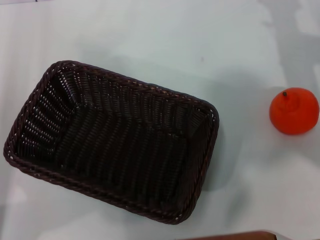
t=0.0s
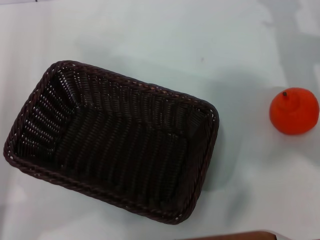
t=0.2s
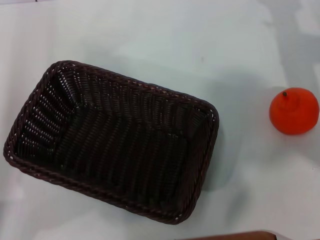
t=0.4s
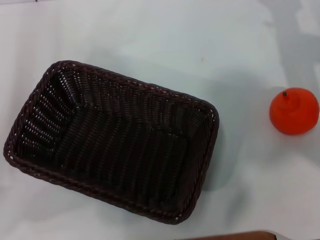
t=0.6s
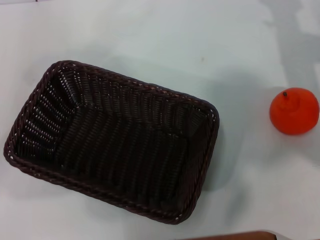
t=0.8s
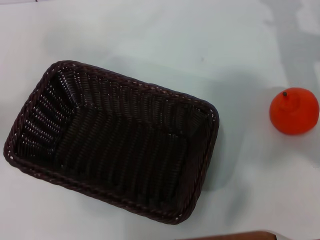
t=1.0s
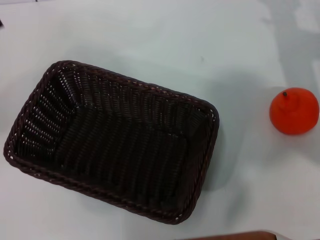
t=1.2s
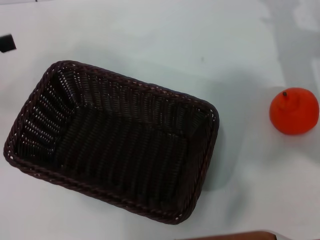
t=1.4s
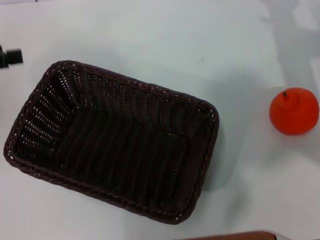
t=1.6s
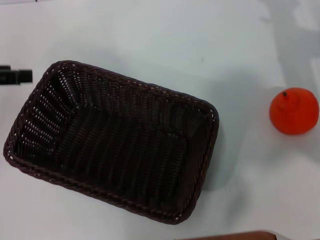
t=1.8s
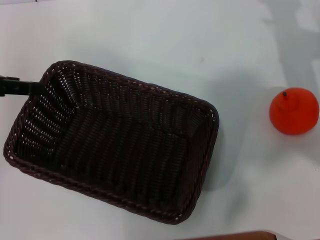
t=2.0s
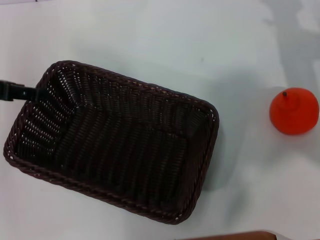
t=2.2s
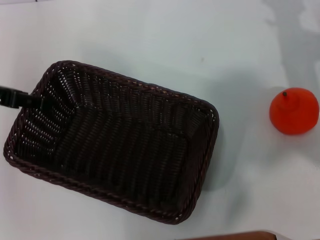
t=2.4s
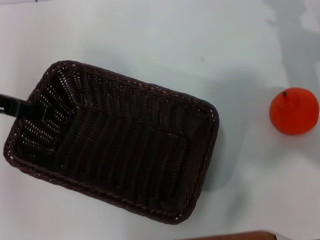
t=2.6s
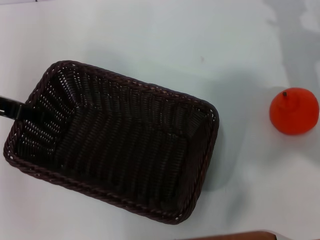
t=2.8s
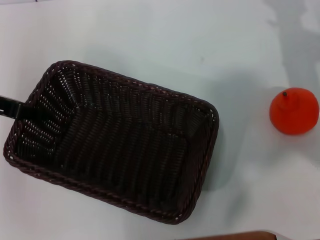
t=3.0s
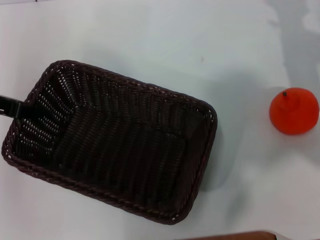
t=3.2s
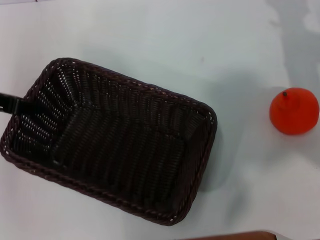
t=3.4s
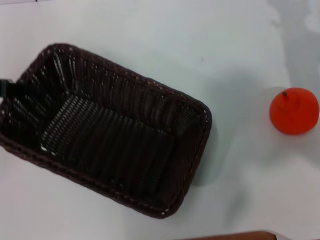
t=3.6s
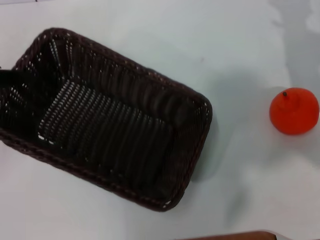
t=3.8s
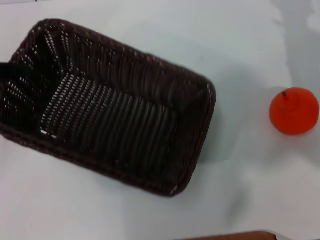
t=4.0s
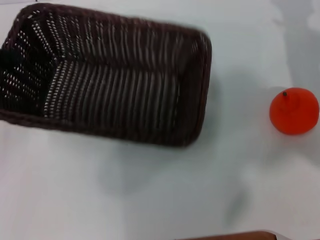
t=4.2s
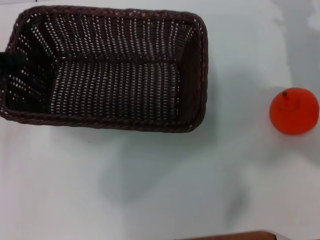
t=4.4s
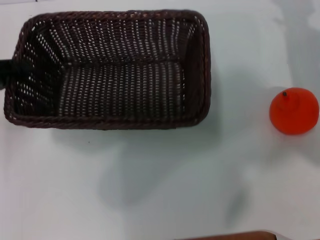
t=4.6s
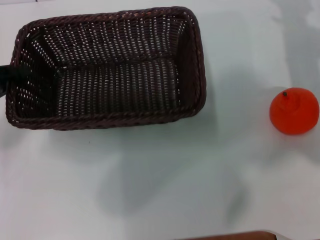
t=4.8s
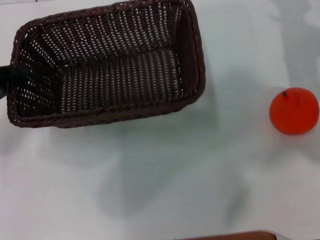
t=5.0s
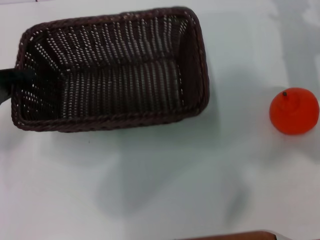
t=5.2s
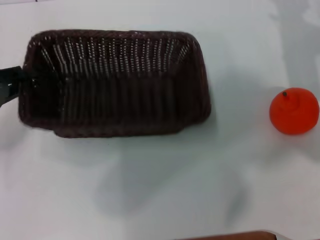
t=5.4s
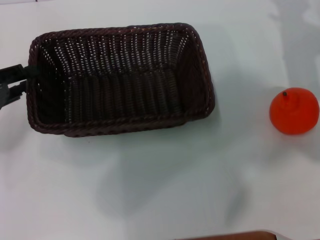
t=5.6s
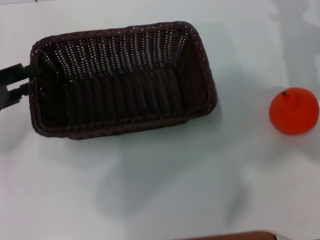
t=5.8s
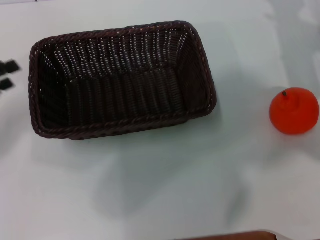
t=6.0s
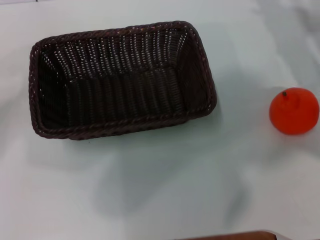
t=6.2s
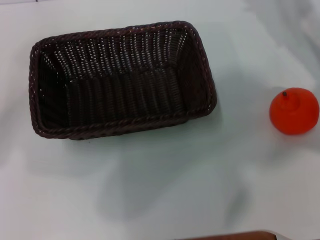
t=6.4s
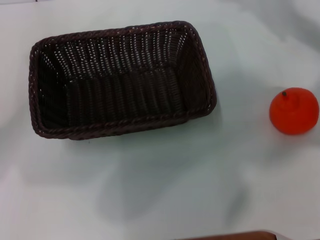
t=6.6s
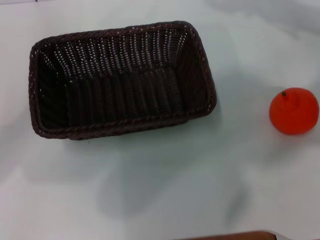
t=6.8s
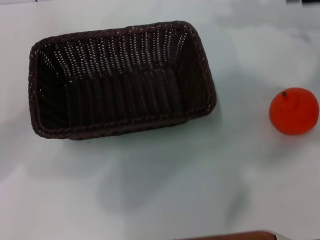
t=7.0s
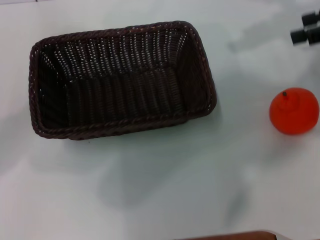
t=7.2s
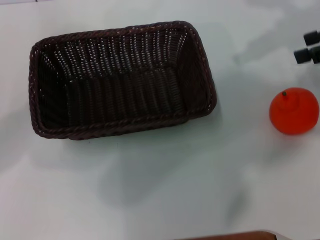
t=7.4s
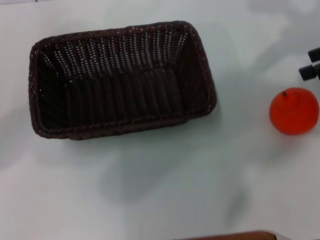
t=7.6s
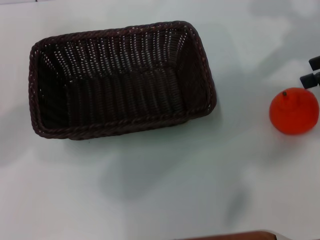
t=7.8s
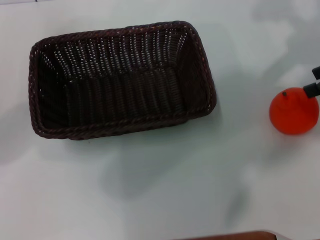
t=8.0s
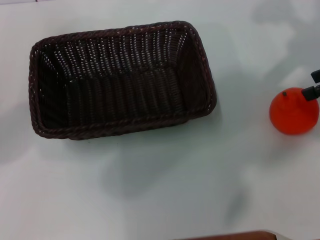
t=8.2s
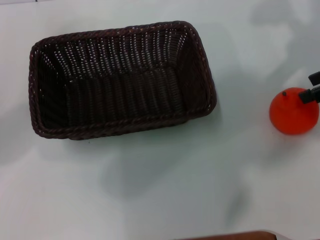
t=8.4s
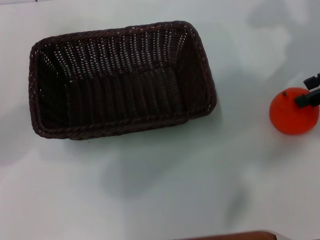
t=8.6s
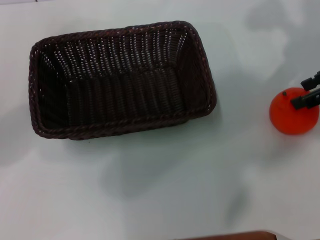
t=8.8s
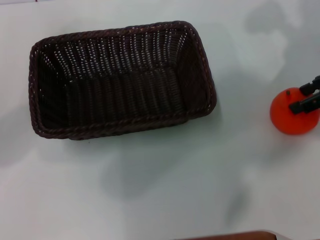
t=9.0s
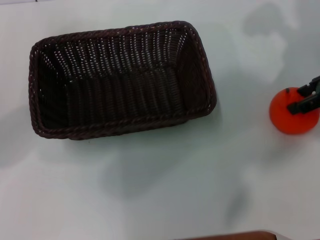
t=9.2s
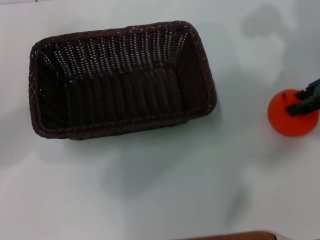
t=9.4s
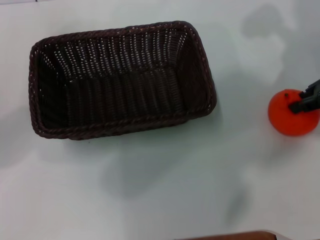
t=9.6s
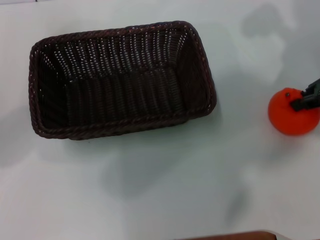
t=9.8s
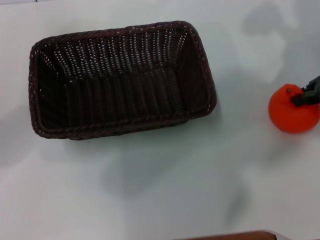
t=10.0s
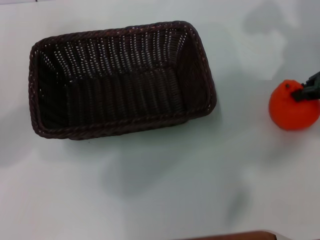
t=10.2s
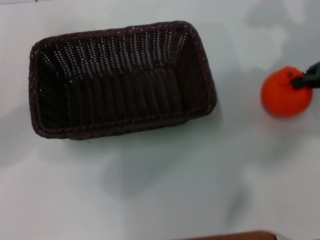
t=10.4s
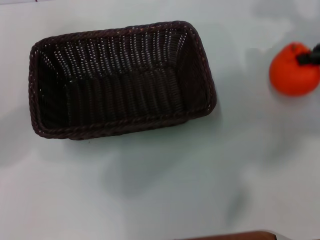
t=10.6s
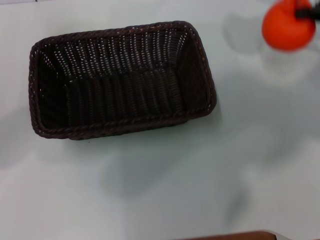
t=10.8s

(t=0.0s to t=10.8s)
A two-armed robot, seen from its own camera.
Task of the whole recording: the left gripper pick up the black basket and place it horizontally in the middle of the table, the right gripper pick up the orange and place it into the black basket.
Step, t=0.0s - t=4.0s: Pick up the dark basket with the left gripper.
Step, t=4.2s - t=5.8s: Place the dark basket in the center of view with the left gripper.
Step, t=6.0s - t=10.6s: Pick up the orange with the right gripper.
t=0.0s - t=1.6s: The left gripper moves upward and forward, some 15 cm.
t=1.6s - t=3.0s: The left gripper is displaced to the right by approximately 5 cm.
t=3.0s - t=4.6s: The left gripper changes place by approximately 5 cm, and closes its fingers.
t=4.6s - t=6.2s: The left gripper opens.
t=6.2s - t=7.8s: The right gripper moves upward, backward and to the right, approximately 15 cm.
t=7.8s - t=9.2s: The right gripper is displaced downward by about 5 cm.
t=9.2s - t=10.8s: The right gripper ends up some 5 cm from where it was, and closes its fingers.

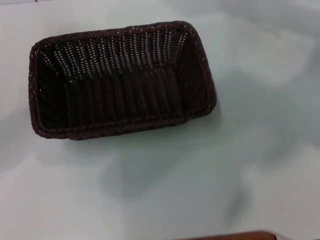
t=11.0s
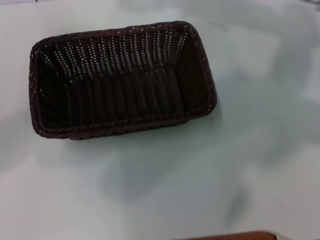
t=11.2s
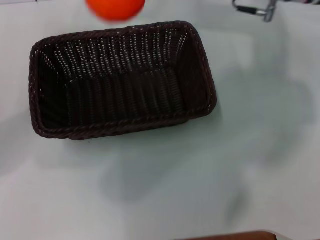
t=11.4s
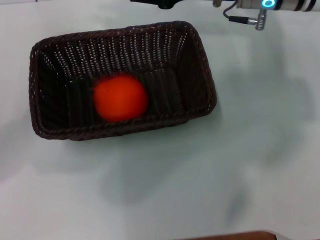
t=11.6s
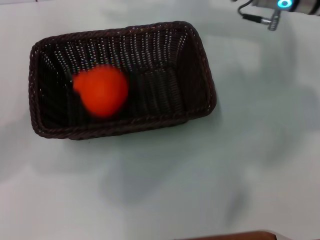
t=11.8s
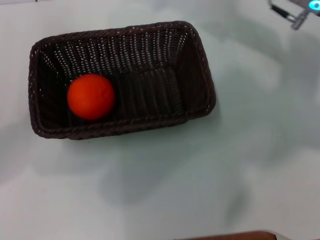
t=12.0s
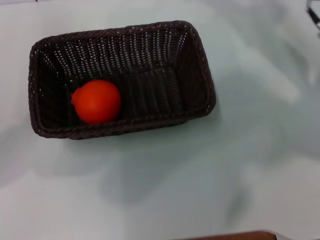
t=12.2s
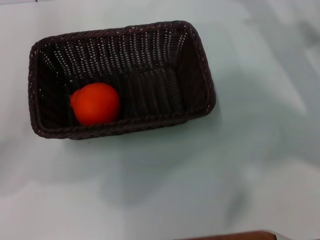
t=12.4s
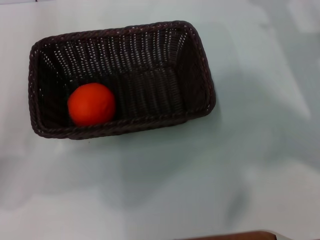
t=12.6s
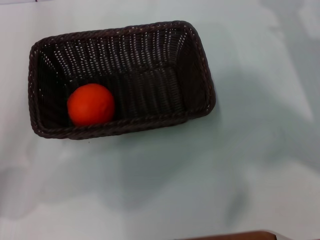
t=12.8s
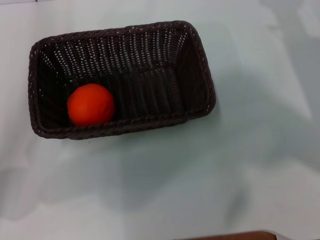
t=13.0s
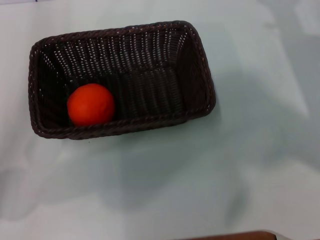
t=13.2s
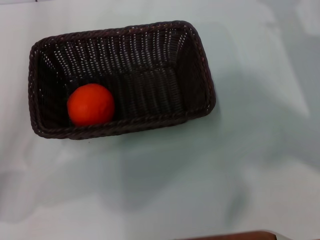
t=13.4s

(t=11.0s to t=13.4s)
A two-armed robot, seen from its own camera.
Task of the whole recording: the left gripper pick up the black basket and place it horizontally in the middle of the table, the right gripper pick up the orange and place it into the black basket.
Step, t=11.0s - t=11.6s: Place the orange into the dark basket with the right gripper.
t=11.0s - t=12.2s: The right gripper heads downward, covering approximately 10 cm, goes to the left and returns, some 15 cm each way, and opens.
t=12.2s - t=13.4s: The right gripper changes place by about 5 cm.

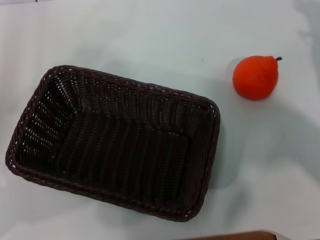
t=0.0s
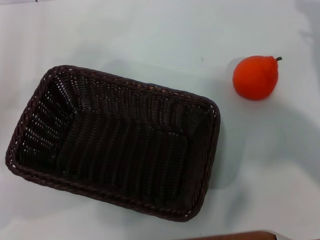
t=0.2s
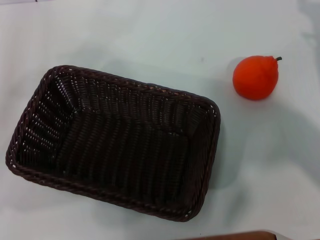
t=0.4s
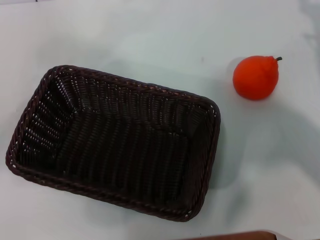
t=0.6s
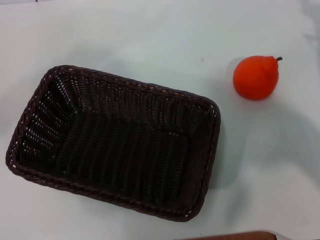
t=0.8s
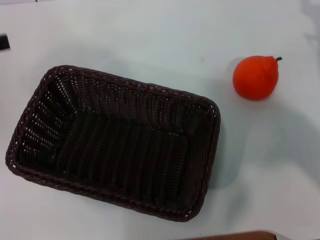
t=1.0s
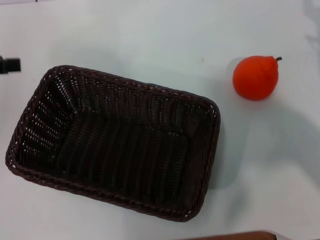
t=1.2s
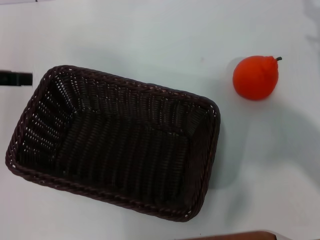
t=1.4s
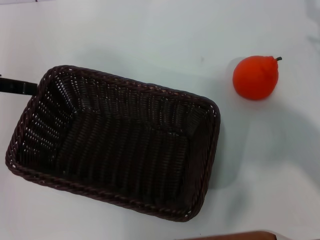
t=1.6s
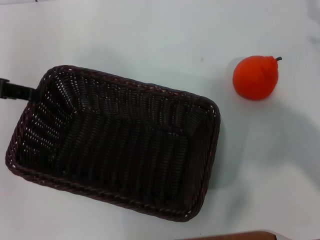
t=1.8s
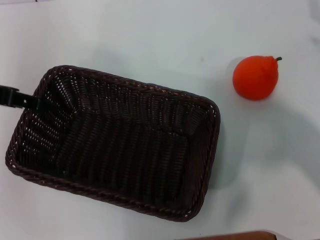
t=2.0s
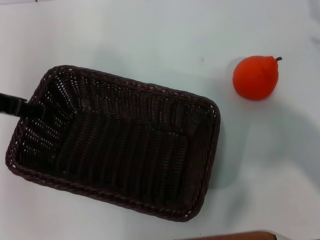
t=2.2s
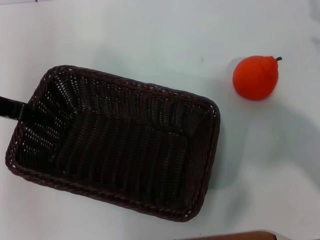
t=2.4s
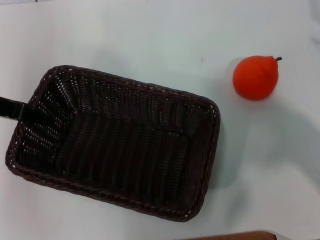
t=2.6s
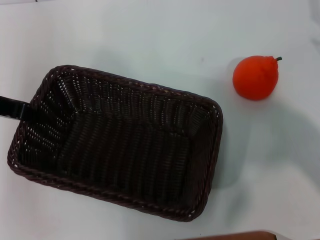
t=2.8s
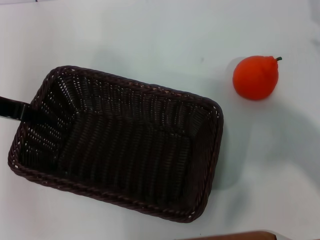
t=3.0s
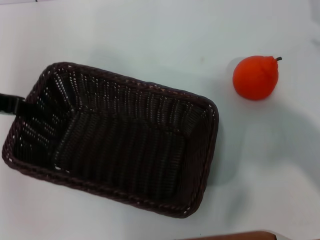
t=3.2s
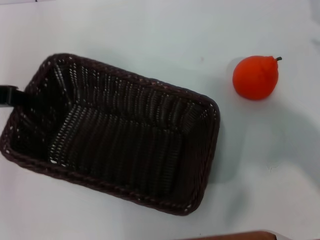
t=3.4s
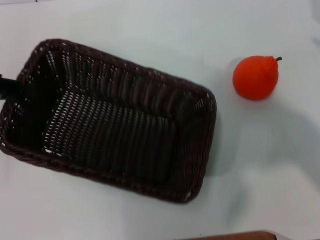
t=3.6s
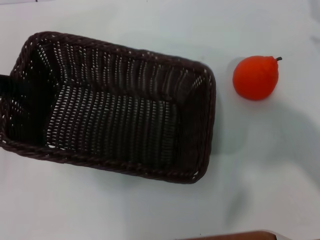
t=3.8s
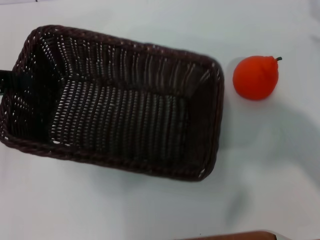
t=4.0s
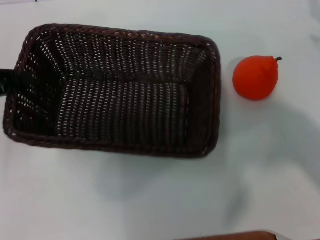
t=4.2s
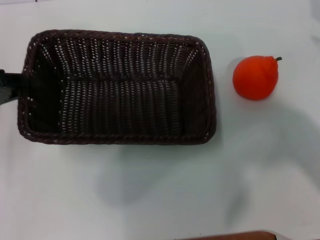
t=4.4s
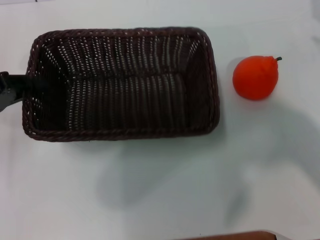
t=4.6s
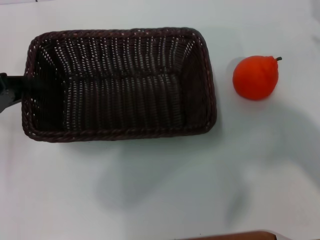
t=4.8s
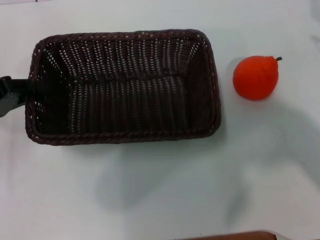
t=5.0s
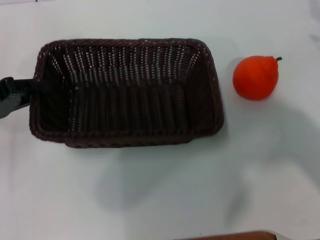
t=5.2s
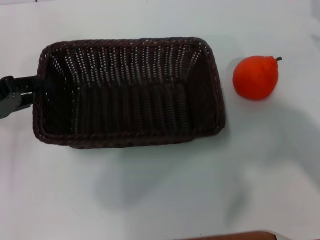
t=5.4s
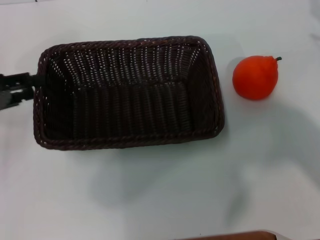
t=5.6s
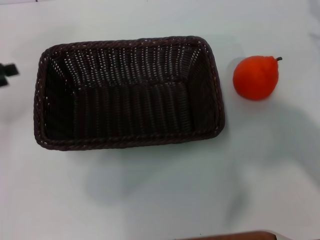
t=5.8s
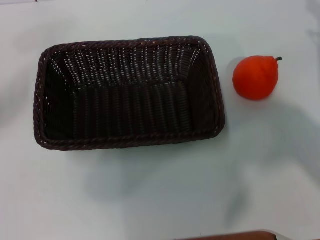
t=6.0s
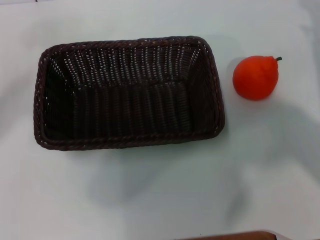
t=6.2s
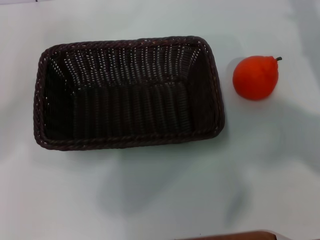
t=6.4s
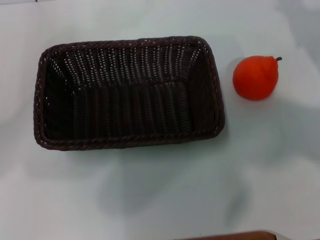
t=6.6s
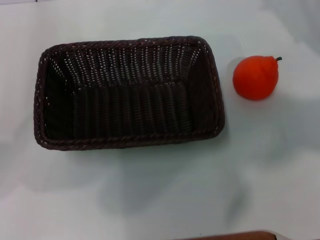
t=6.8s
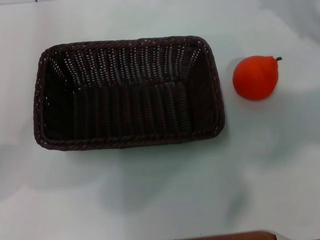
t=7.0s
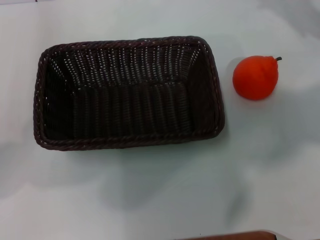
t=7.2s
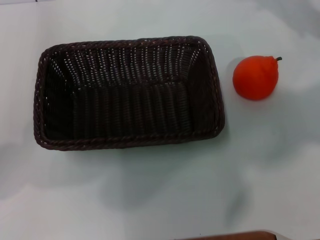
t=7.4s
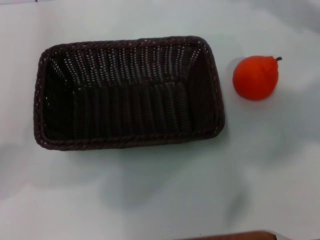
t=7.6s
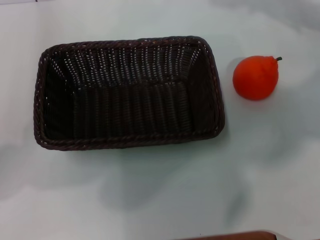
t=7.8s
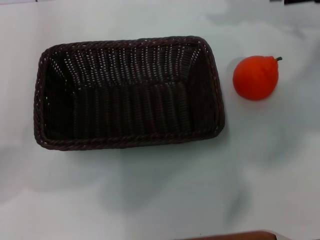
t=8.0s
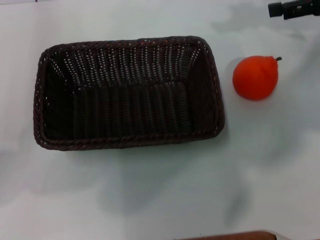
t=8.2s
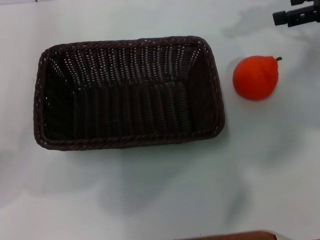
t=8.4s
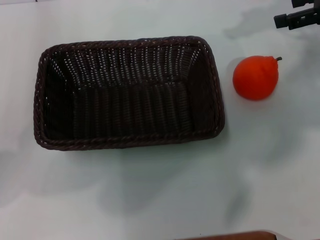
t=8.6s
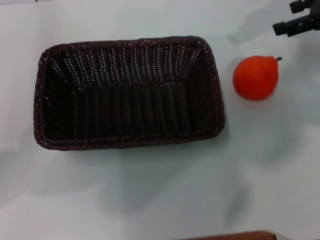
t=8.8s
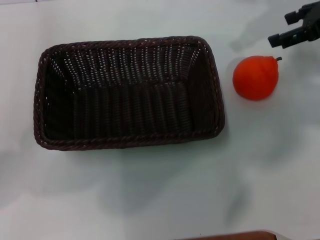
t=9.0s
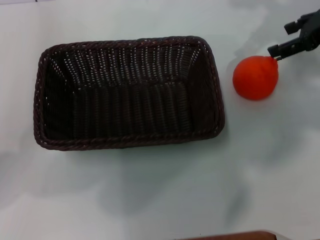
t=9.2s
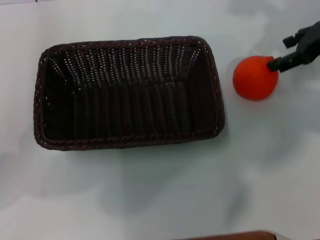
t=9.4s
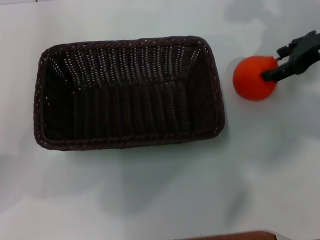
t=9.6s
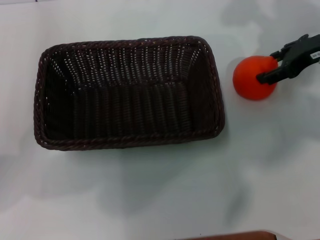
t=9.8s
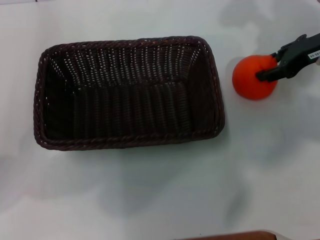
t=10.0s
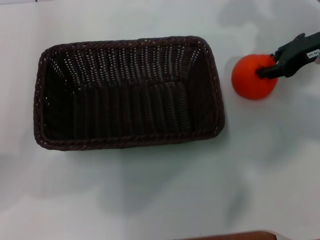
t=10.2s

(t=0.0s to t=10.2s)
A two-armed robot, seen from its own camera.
Task of the whole recording: the left gripper pick up the black basket and place it horizontally in the middle of the table, the right gripper pick up the orange and place it into the black basket.
Step, t=0.0s - t=3.4s: Pick up the dark basket with the left gripper.
Step, t=3.6s - t=5.4s: Place the dark basket in the center of view with the left gripper.
t=0.0s - t=1.4s: The left gripper travels upward and forward by some 15 cm.
t=1.4s - t=3.0s: The left gripper moves some 5 cm, and closes.
t=3.0s - t=4.4s: The left gripper moves to the left, about 5 cm.
t=4.4s - t=5.8s: The left gripper opens.
t=5.8s - t=7.2s: The left gripper is displaced to the right by about 5 cm; the right gripper is displaced upward and forward by some 15 cm.
t=8.8s - t=10.2s: The right gripper shifts about 5 cm downward.
